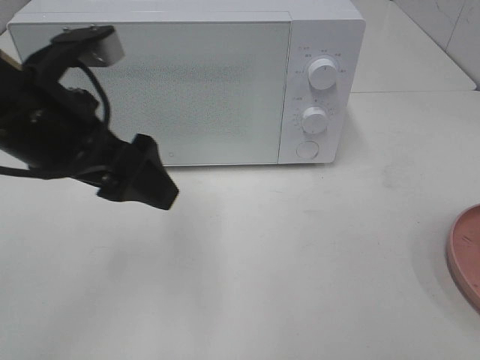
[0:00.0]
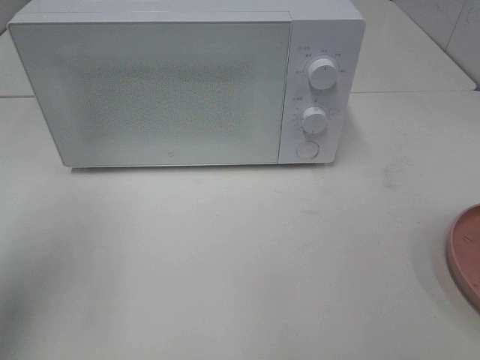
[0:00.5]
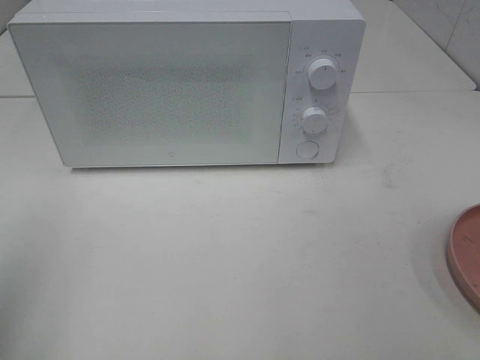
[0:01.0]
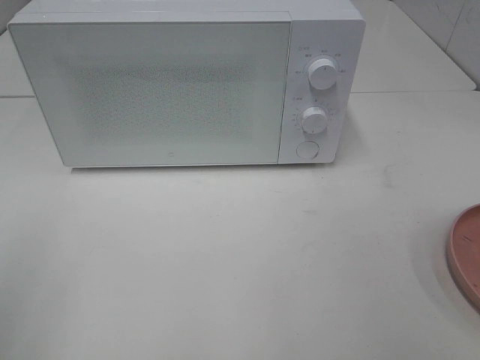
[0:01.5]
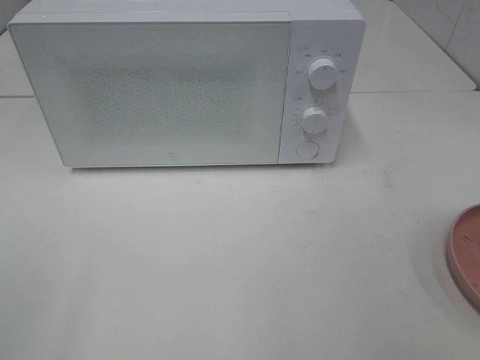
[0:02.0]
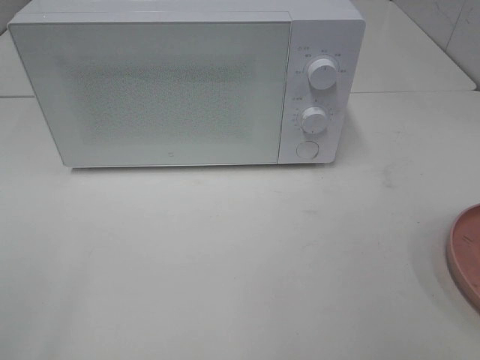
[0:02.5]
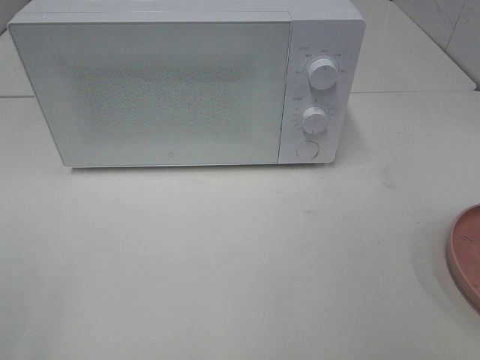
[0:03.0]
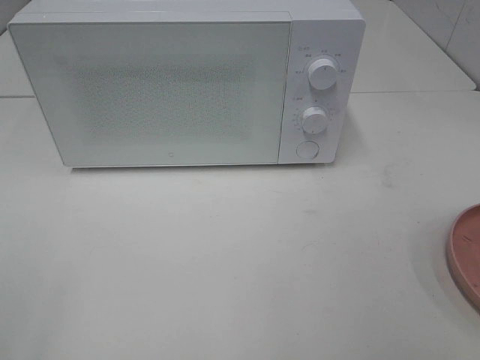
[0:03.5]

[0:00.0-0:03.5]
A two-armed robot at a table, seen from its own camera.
Task of the whole recording: Heat the burger.
0:00.0 to 0:02.0: The left gripper is displaced backward and to the left by about 25 cm.

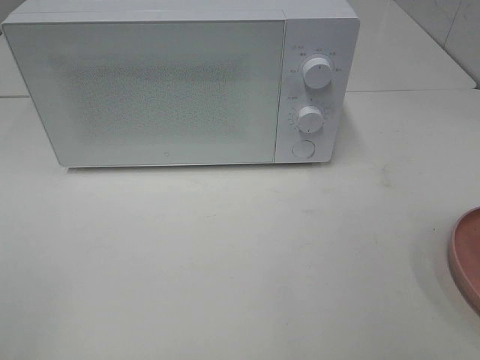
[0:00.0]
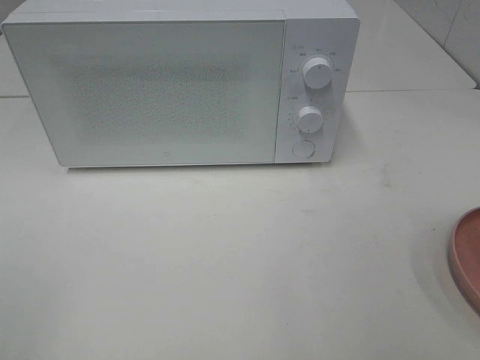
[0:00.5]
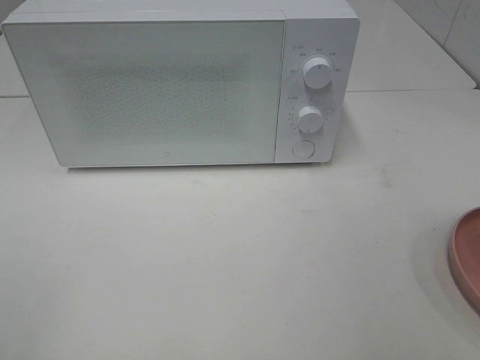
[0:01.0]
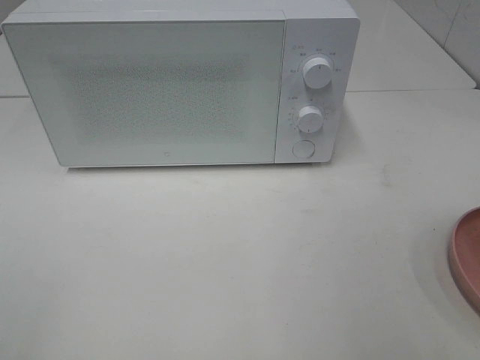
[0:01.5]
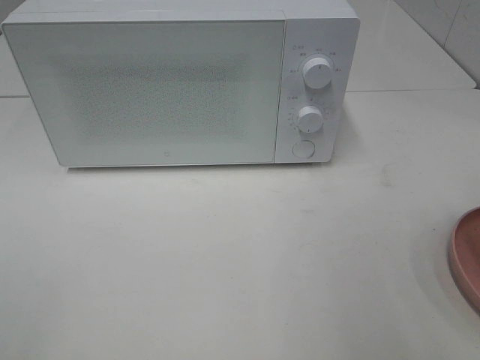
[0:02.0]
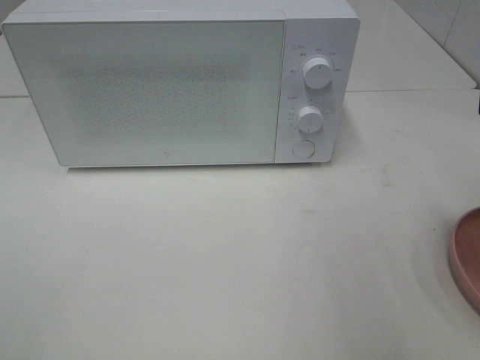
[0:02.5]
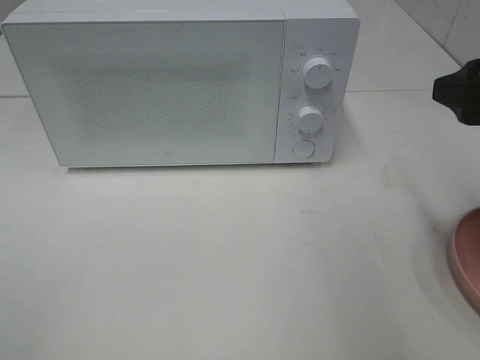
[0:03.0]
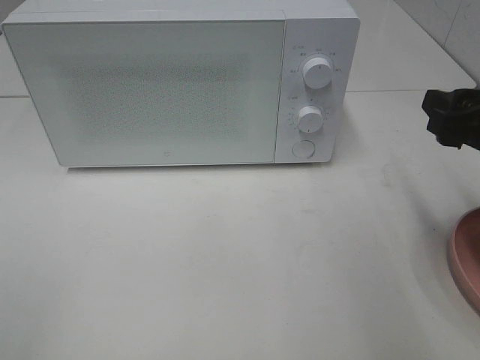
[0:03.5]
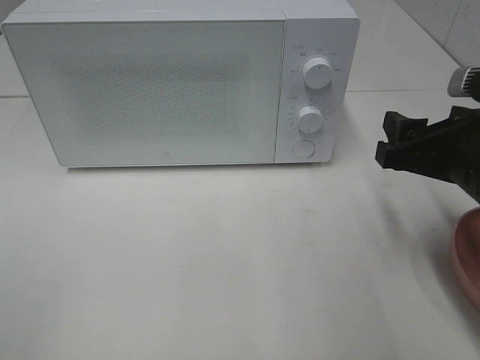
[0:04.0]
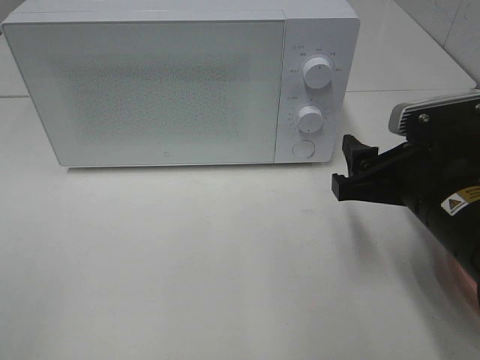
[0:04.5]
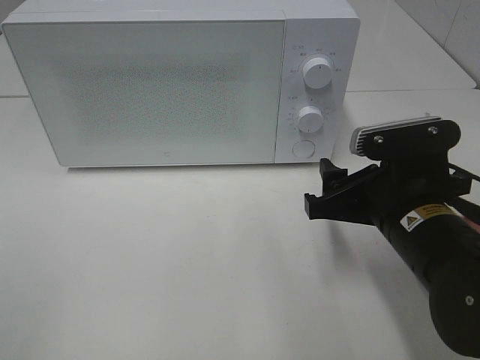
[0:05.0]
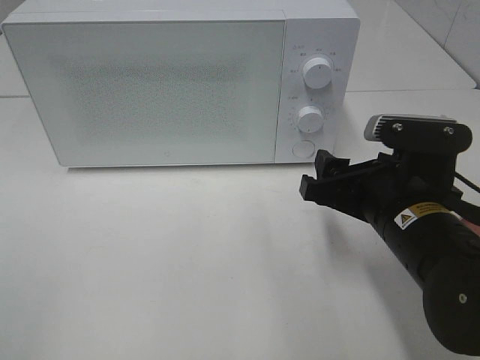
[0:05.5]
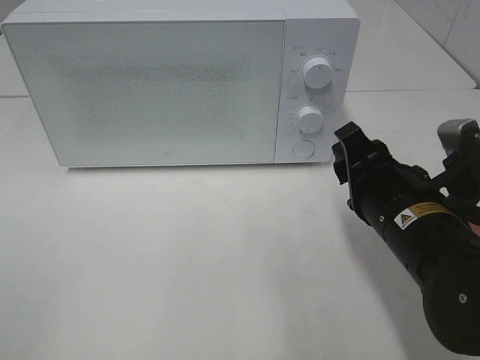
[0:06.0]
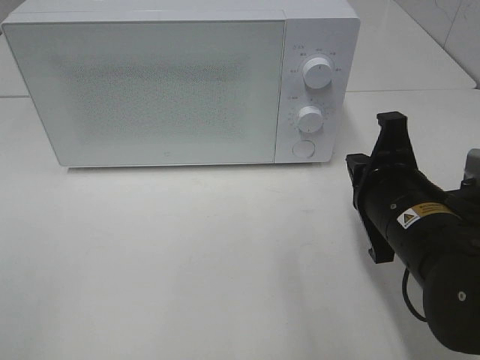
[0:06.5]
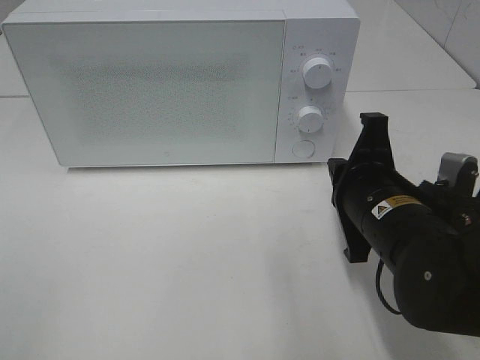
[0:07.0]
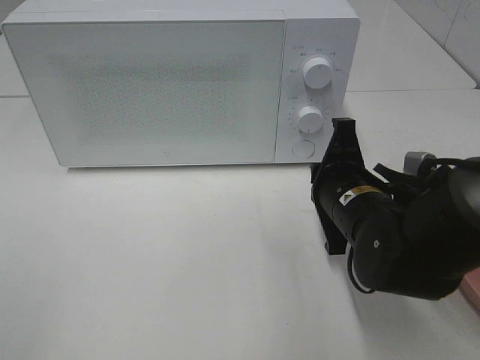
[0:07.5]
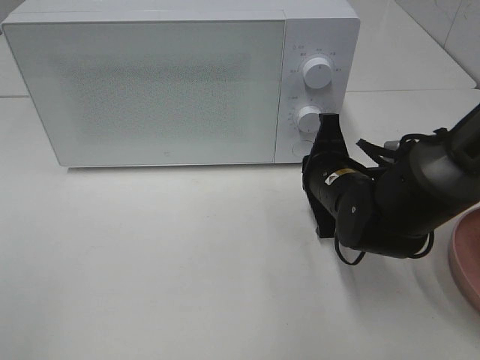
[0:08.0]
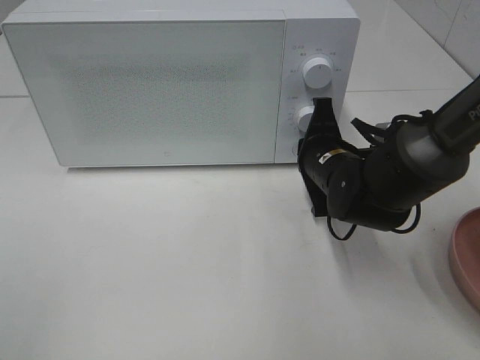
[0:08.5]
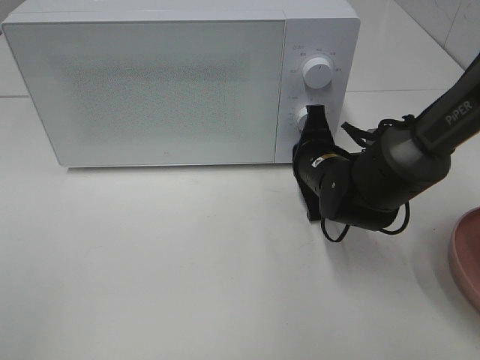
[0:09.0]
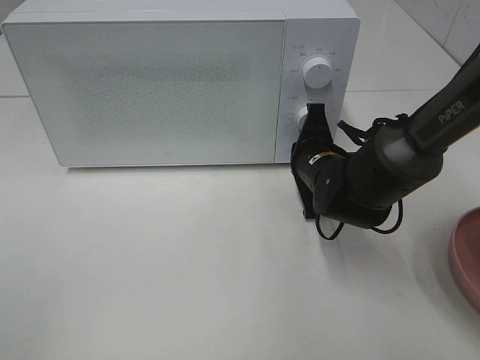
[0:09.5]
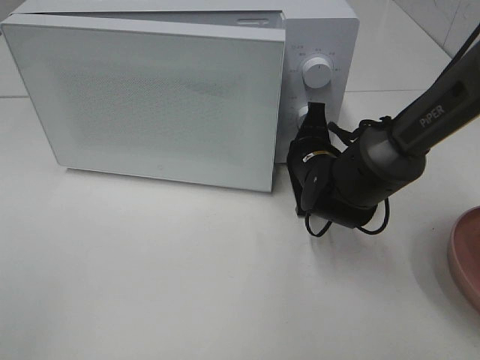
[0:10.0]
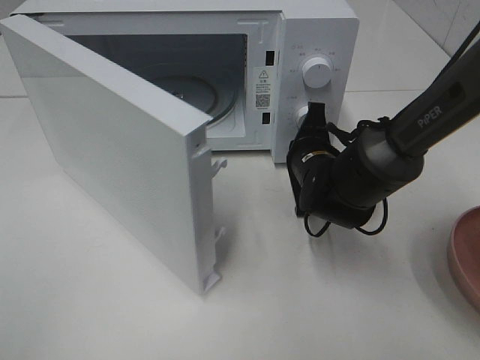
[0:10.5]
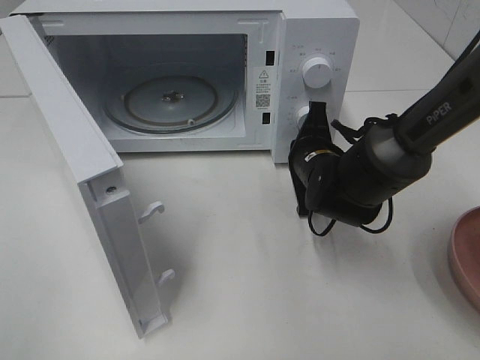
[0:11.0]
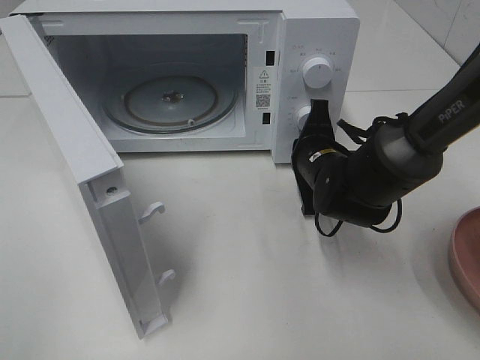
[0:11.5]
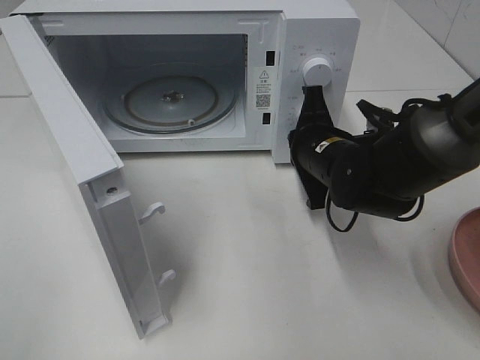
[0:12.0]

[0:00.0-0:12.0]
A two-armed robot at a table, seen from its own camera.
Task of the whole recording: Heat the burger.
0:02.0 to 0:04.0: The right gripper is displaced downward, forward and to the left by some 15 cm.
0:04.0 to 0:06.0: The right gripper travels to the left by about 5 cm.
0:06.0 to 0:08.0: The right gripper heads forward and downward, covering approximately 10 cm, and closes up.
0:08.0 to 0:10.0: The right gripper heads forward, covering approximately 5 cm.

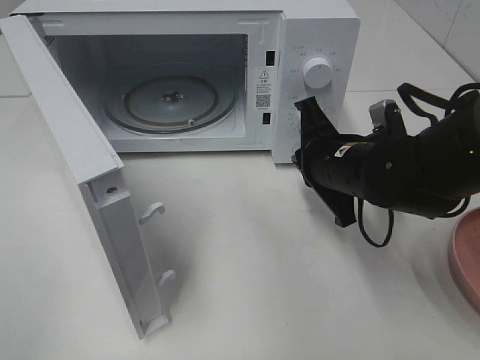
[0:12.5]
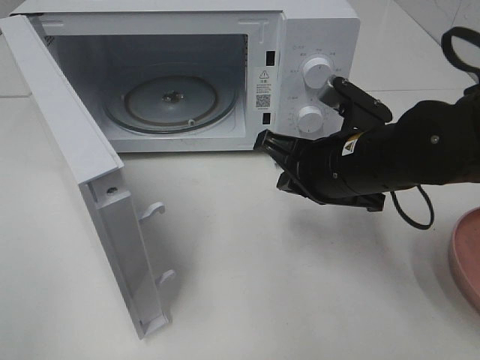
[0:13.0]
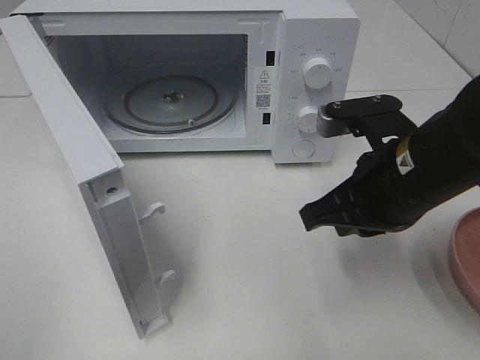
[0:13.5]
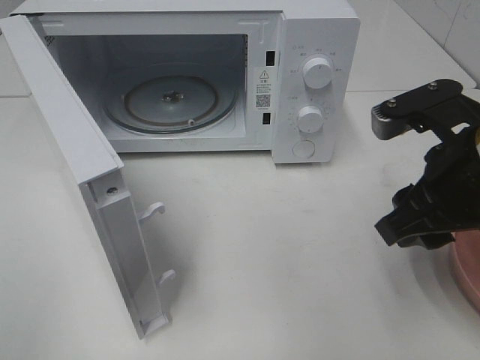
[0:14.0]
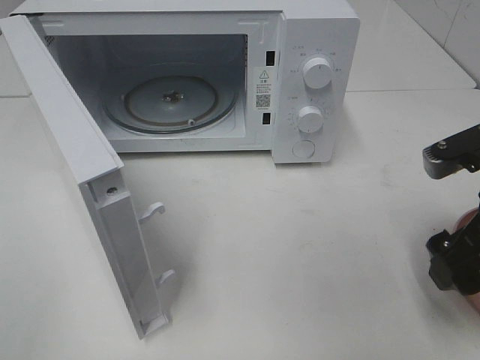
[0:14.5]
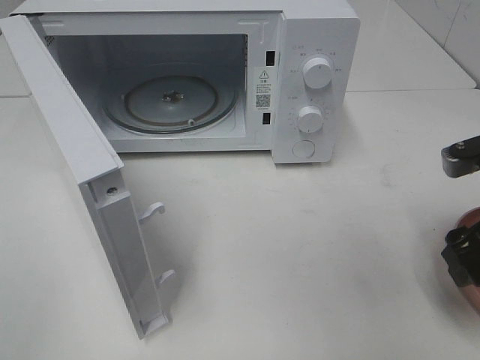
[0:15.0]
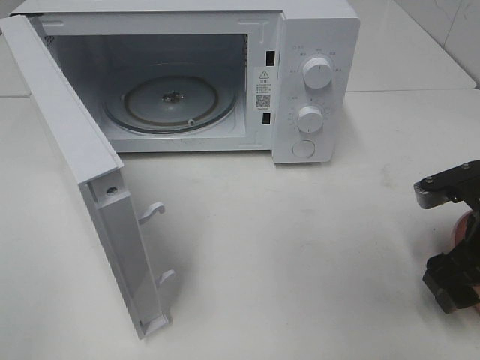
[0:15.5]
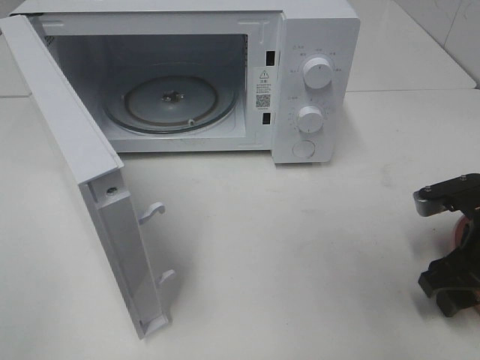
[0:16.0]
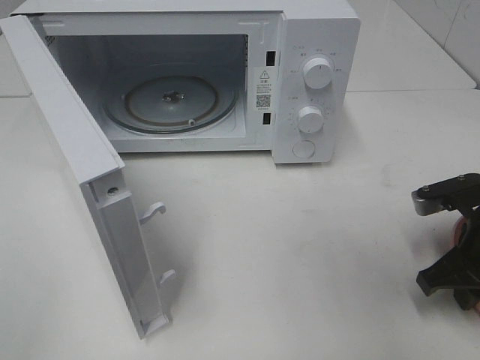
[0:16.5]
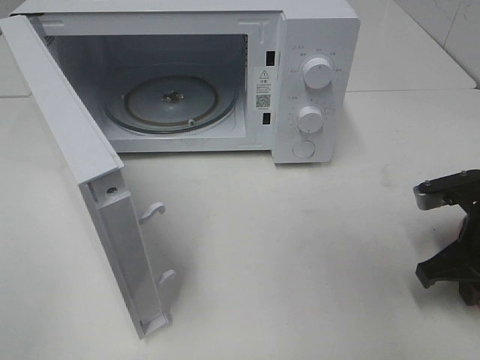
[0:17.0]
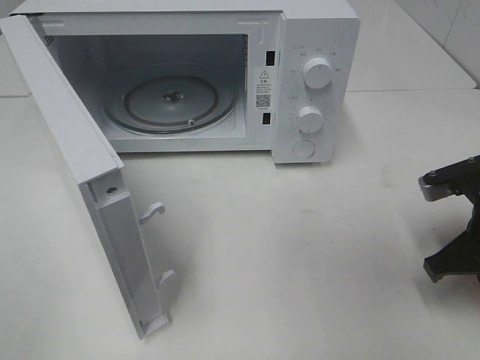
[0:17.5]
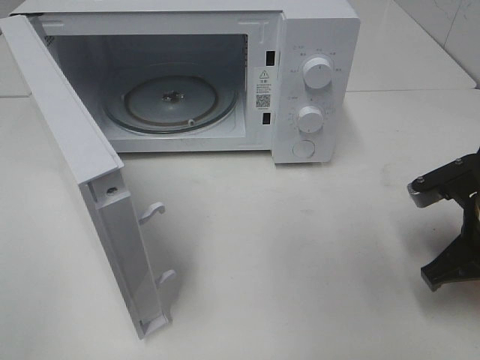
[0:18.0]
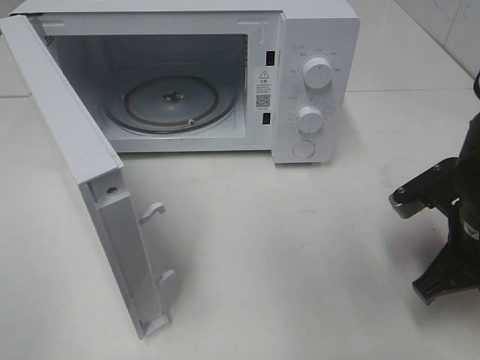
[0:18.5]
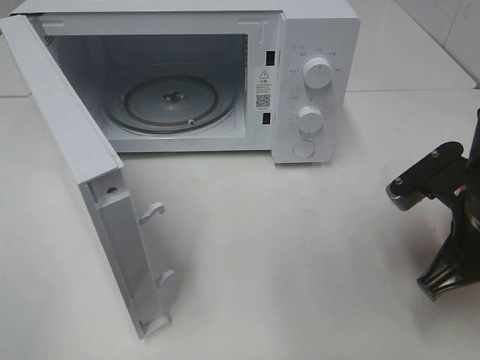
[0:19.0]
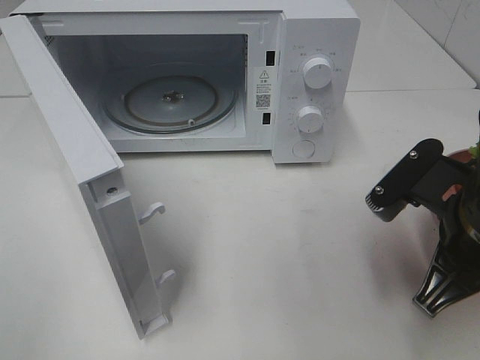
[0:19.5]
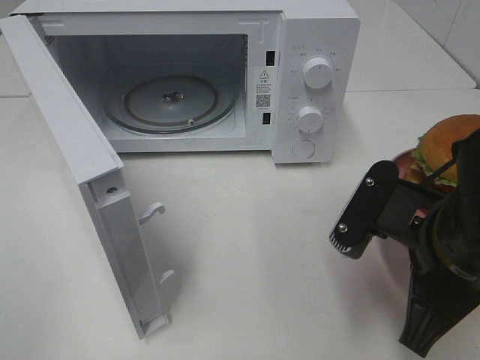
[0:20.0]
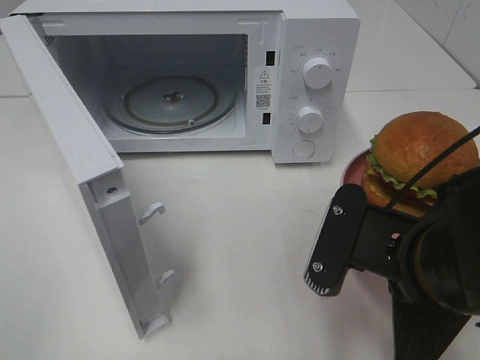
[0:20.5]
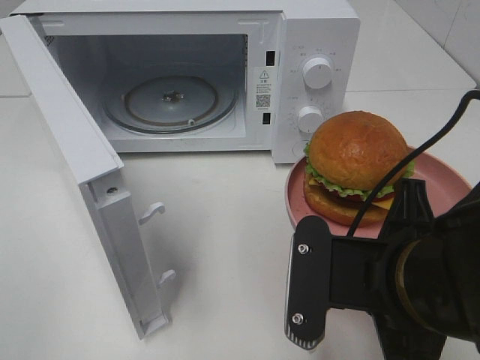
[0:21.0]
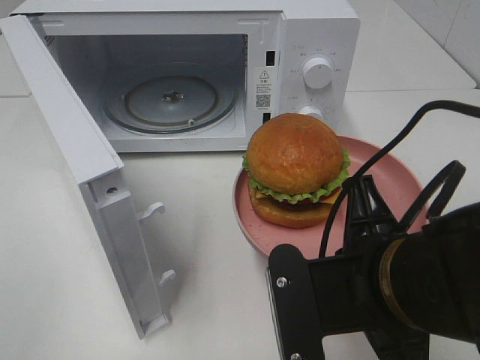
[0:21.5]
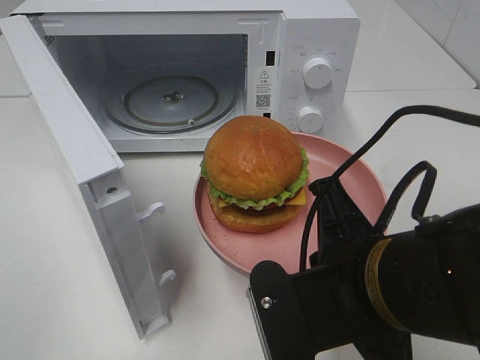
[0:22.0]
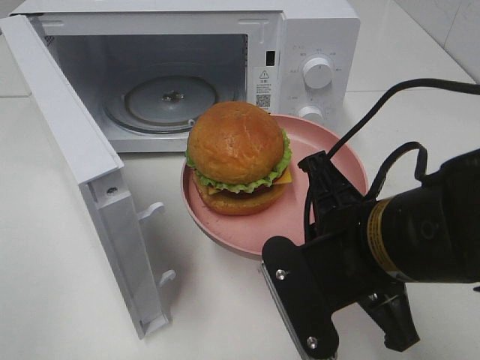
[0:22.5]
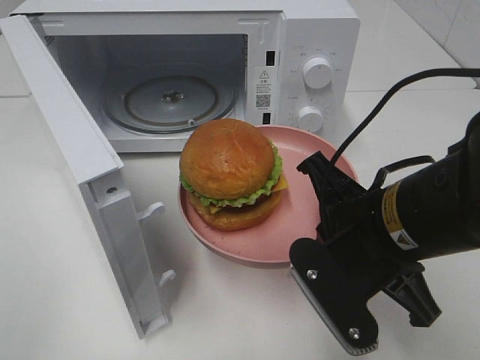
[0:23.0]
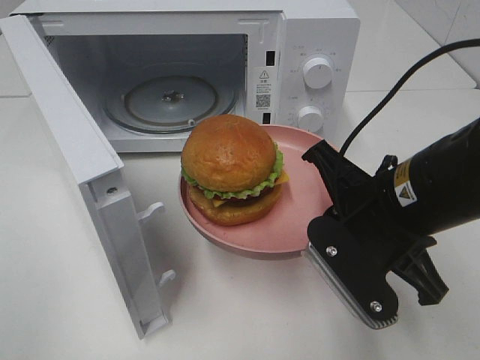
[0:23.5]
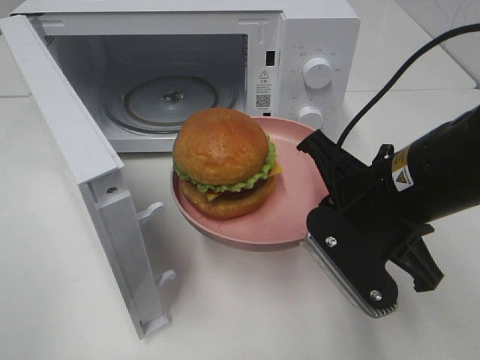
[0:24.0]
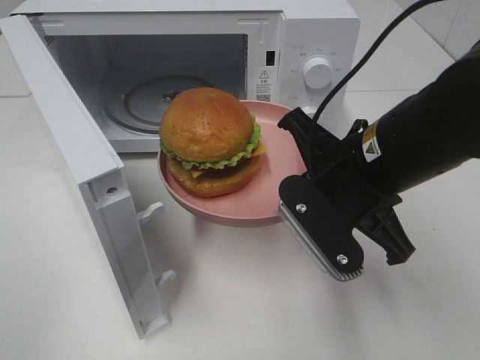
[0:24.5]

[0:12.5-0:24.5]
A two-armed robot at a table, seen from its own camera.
Task of the whole recording: Heat the burger.
Step, 0:12.5 to 0:17.5: Right hand: grab the plate with the hamburger.
0:12.5 to 0:14.5: The right gripper shifts about 15 cm to the right, backward and upward, and opens up.
0:14.5 to 0:16.5: The right gripper travels downward by some 10 cm, and closes.
0:16.5 to 0:18.5: The right gripper moves about 5 cm.
0:18.5 to 0:20.5: The right gripper heads to the left and backward, covering approximately 10 cm.
0:22.5 to 0:24.5: The right gripper travels forward by some 5 cm.
